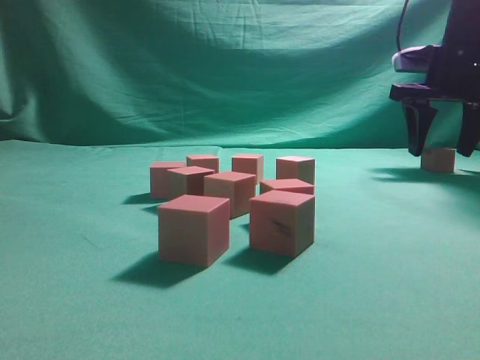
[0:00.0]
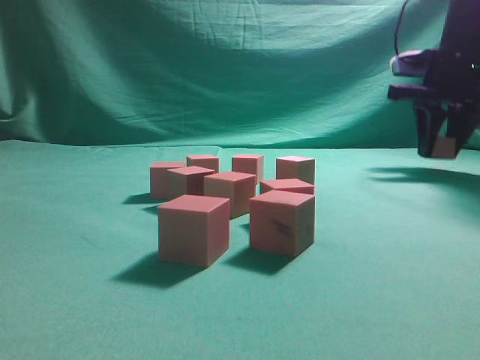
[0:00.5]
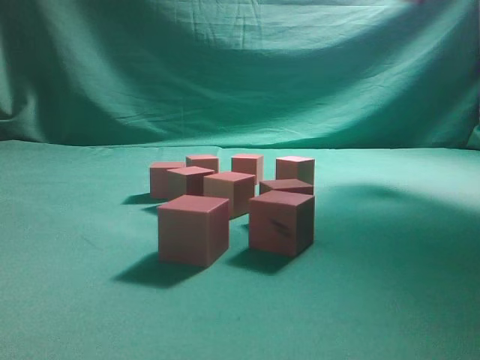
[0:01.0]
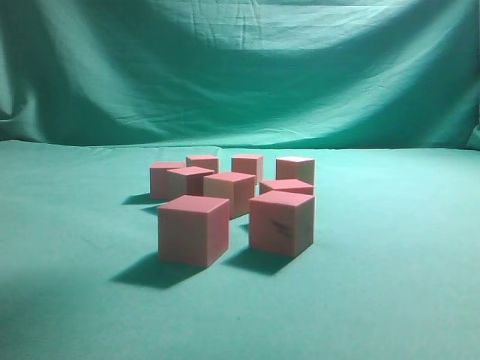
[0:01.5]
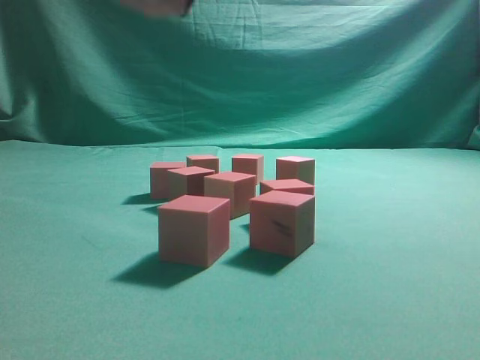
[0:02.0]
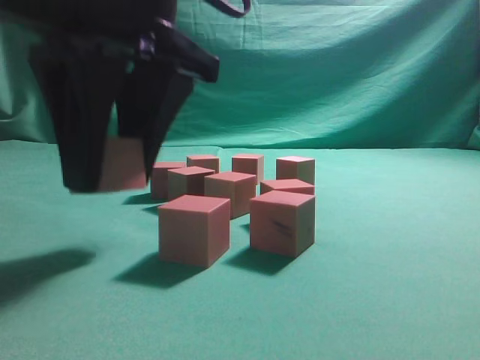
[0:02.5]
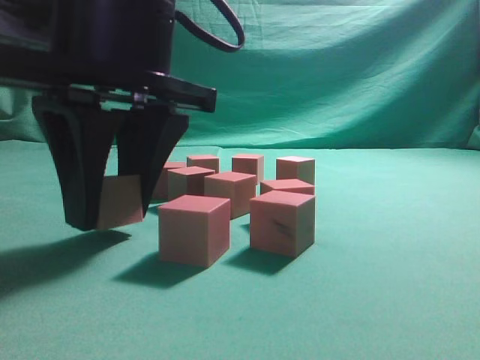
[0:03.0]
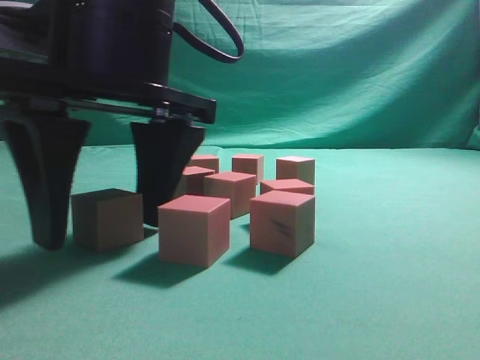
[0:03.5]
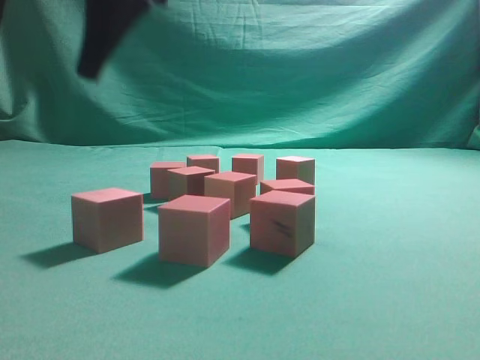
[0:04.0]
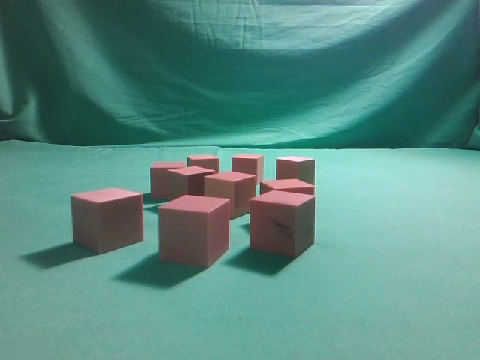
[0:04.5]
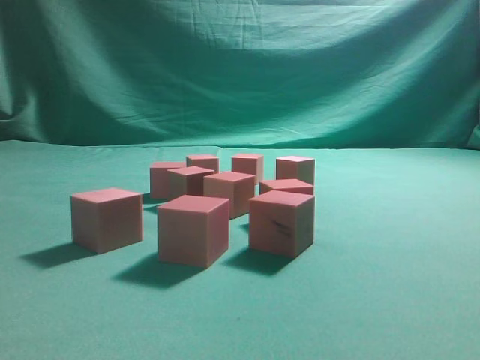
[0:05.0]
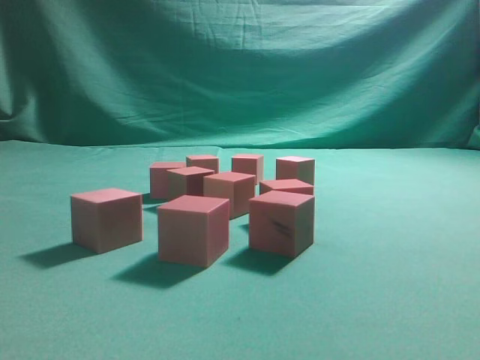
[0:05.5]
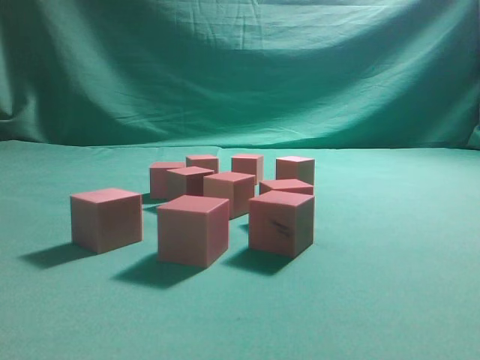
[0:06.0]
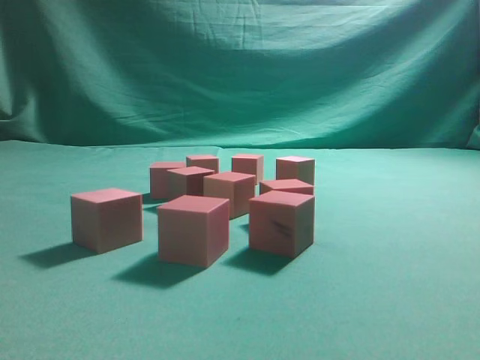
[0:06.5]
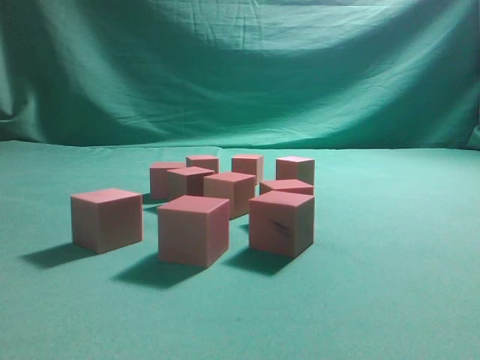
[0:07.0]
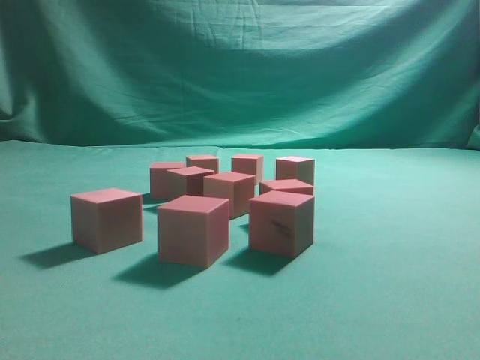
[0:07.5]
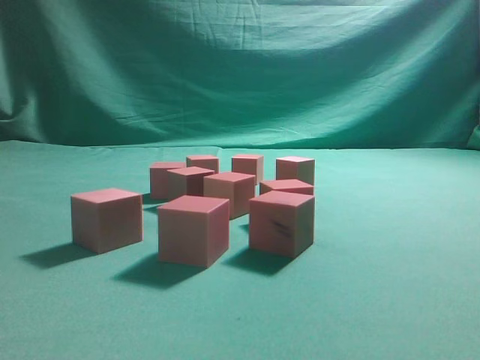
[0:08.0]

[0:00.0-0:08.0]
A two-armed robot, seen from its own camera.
Task of the whole recording: pick up the multiple cubes in two columns one by one and place them in another position on the table.
Step, 0:01.0 to 0:03.5: Place the block at the correct position to assemble the letter S.
0:00.0 to 0:02.0: The right gripper moves to the left, backward and upward, roughly 40 cm, and closes its fingers.
